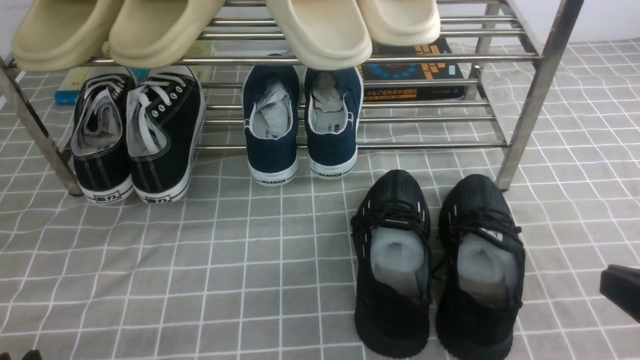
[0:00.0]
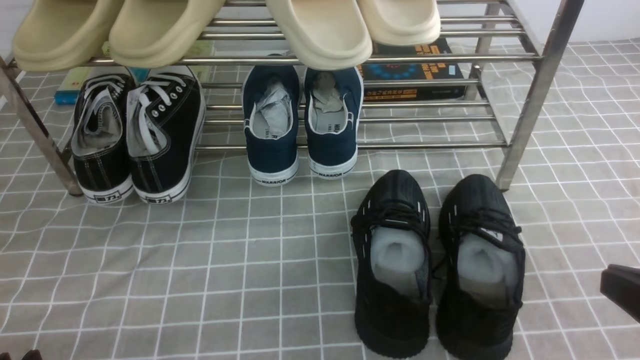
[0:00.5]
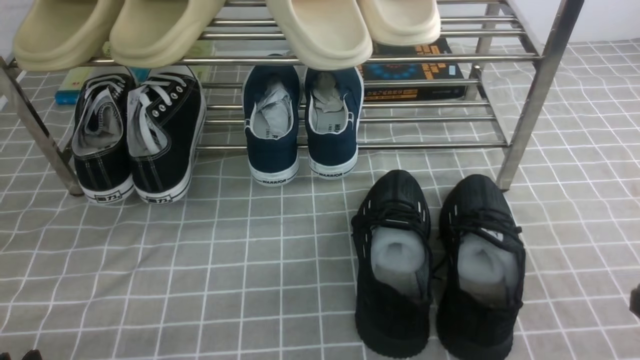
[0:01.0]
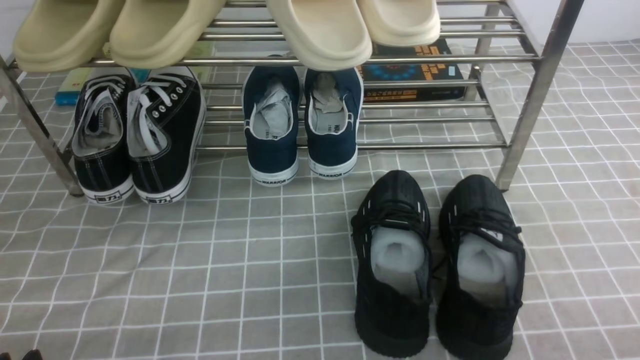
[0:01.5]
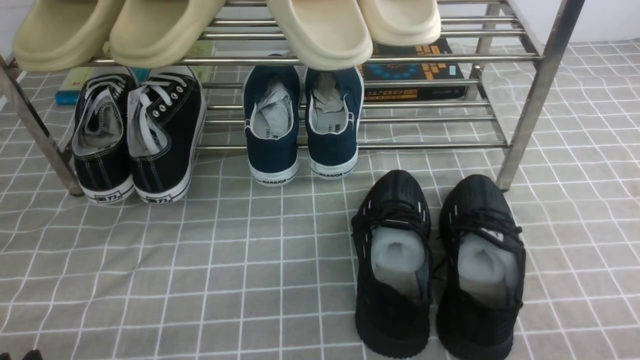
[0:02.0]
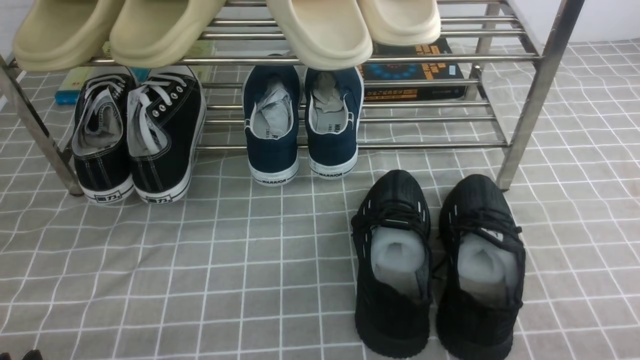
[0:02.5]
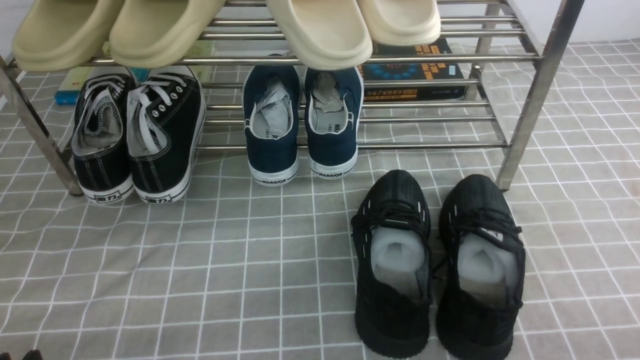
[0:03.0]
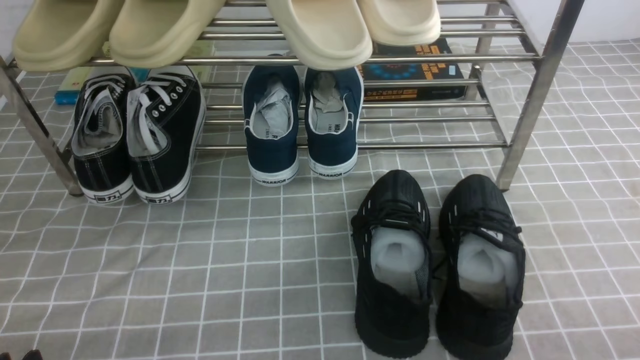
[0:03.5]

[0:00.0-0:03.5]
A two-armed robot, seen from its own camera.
0:00.0 to 0:02.0: The right gripper heads downward and to the right, covering some 10 cm.
0:02.0 to 0:03.5: Both grippers stay put.
